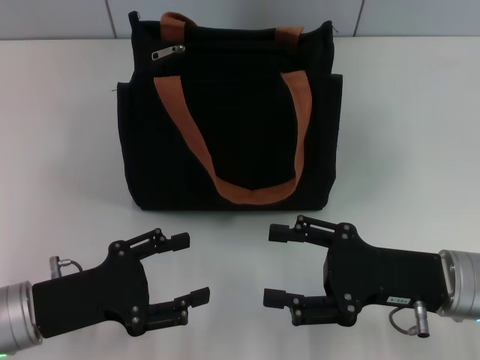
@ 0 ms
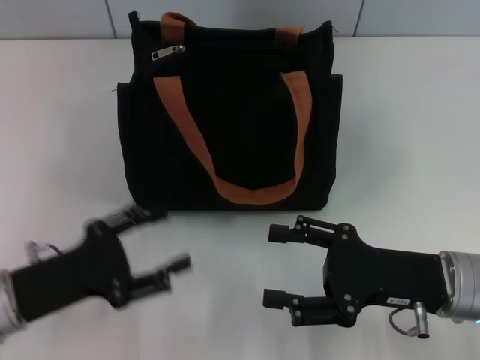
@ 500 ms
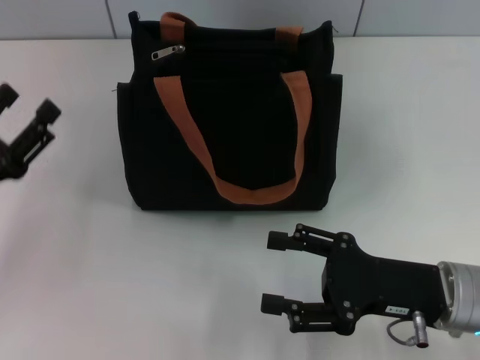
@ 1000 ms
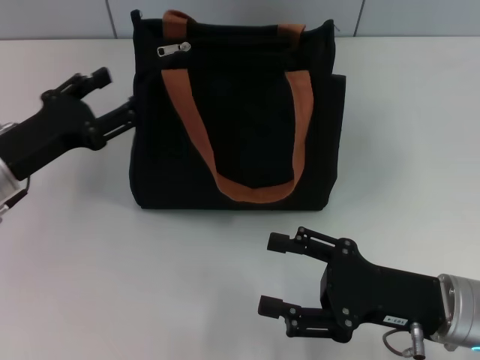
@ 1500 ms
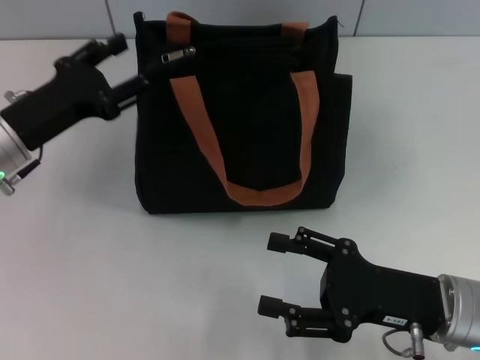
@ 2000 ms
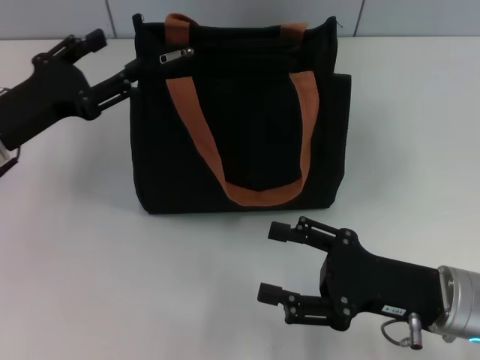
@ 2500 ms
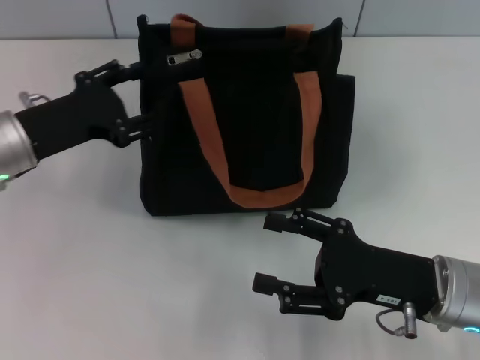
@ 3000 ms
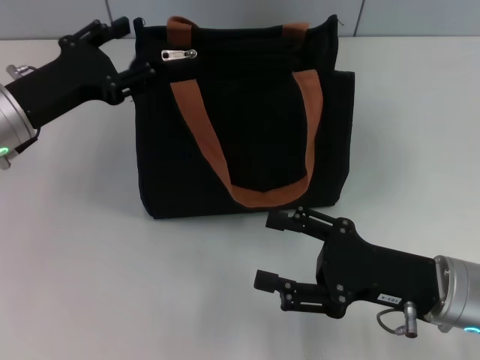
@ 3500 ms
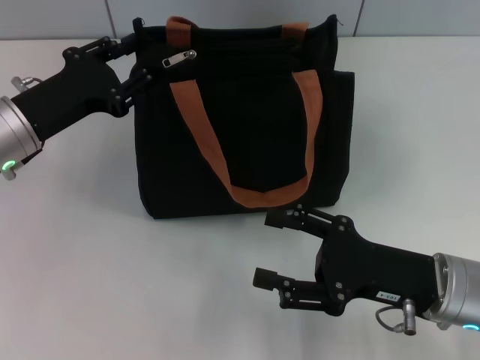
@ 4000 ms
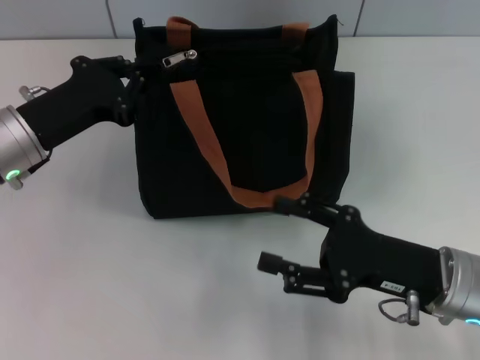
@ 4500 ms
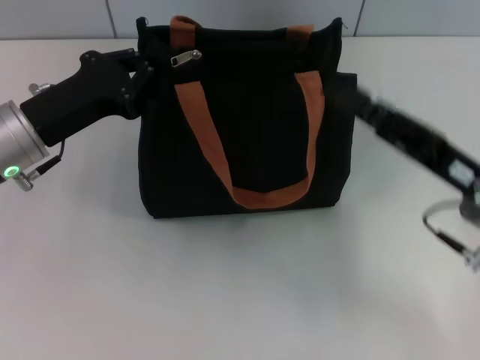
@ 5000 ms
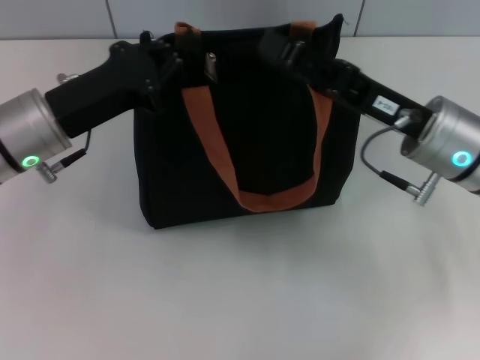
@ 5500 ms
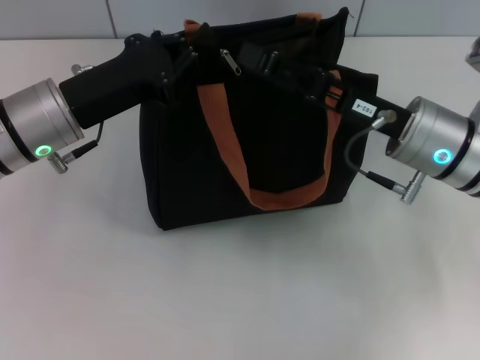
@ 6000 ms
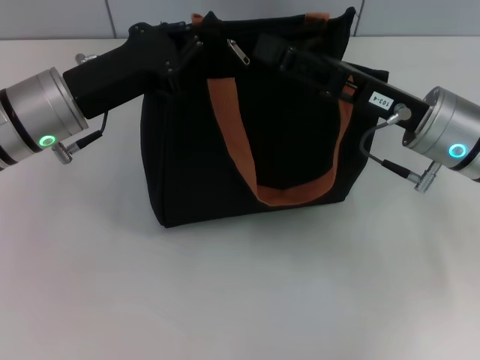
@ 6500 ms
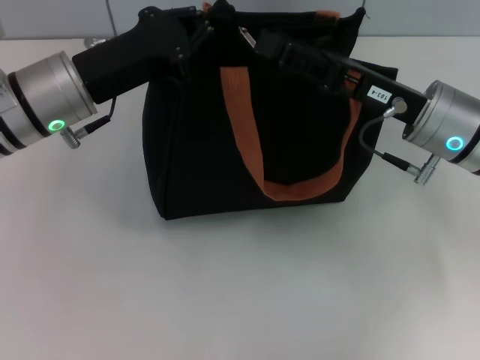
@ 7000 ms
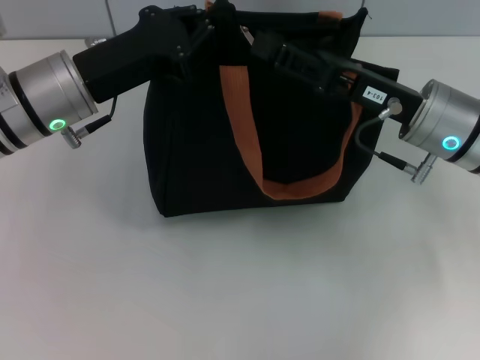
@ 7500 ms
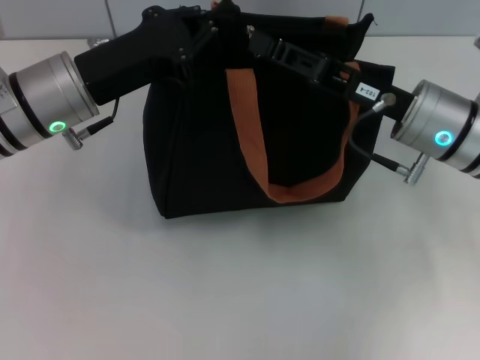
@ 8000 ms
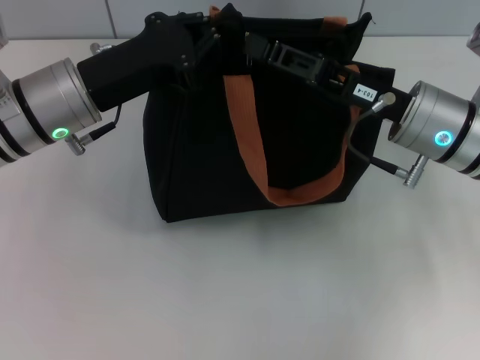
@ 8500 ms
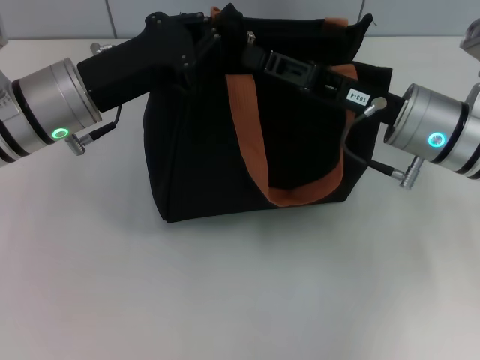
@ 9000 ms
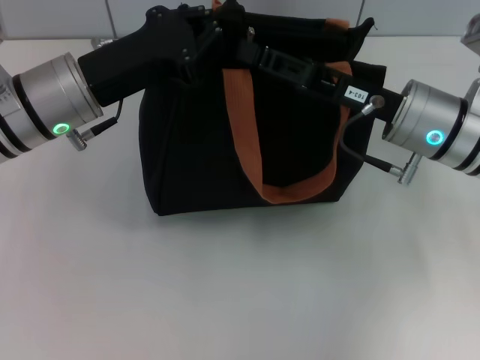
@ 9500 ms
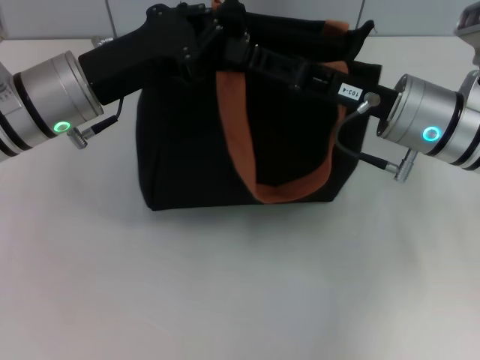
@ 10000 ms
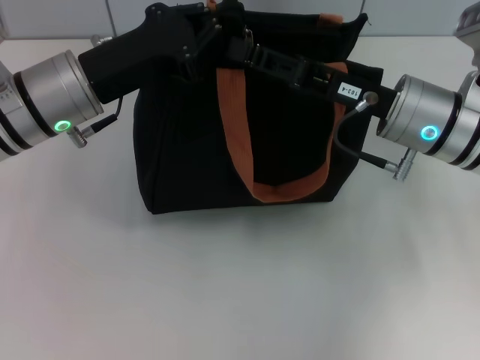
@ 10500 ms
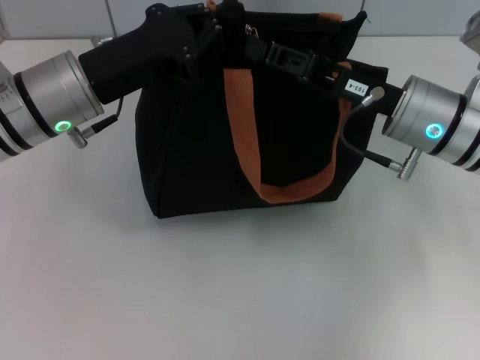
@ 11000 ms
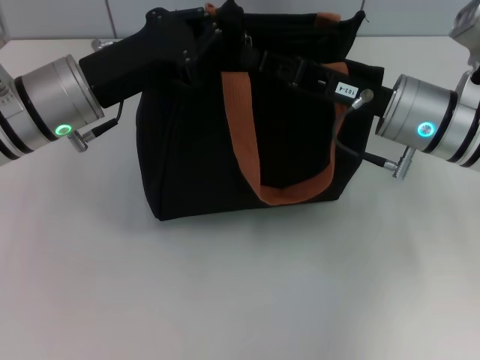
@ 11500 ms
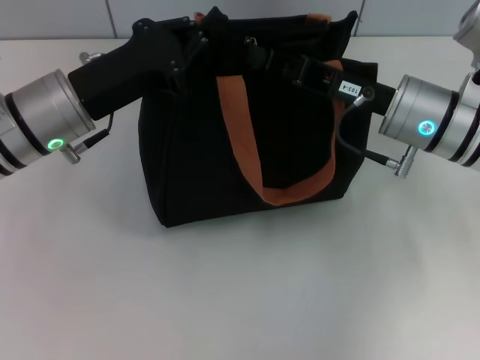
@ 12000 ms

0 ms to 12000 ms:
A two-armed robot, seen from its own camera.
0 ms to 2000 ms: The left gripper shifts roughly 15 cm forward and upward.
2000 ms to 4000 ms: There are only small adjustments of the grippers.
4000 ms to 6000 ms: The left gripper closes its fingers. The right gripper moves forward and upward, roughly 10 cm.
6000 ms to 8000 ms: The right gripper closes its fingers.
8000 ms to 10000 ms: The grippers move only a little.
10000 ms to 12000 ms: The right gripper closes.

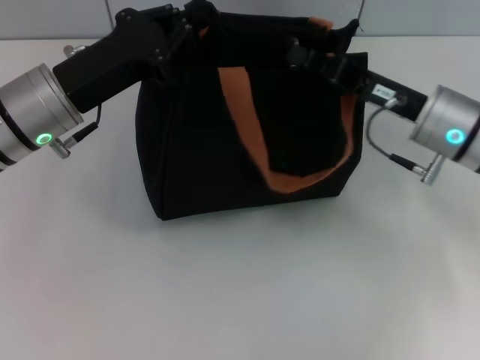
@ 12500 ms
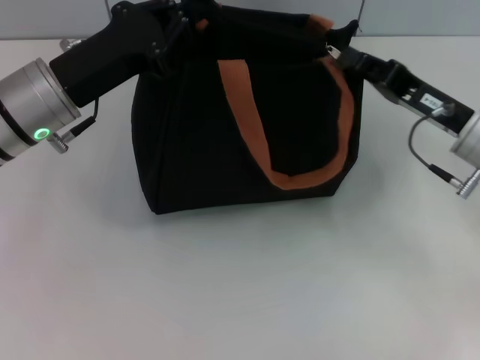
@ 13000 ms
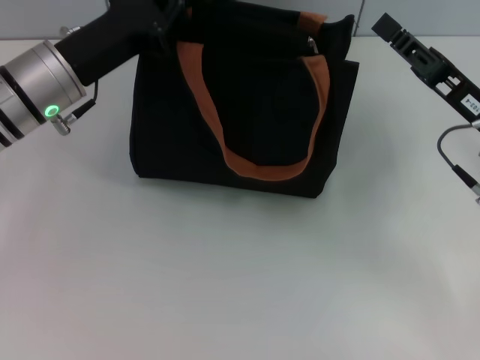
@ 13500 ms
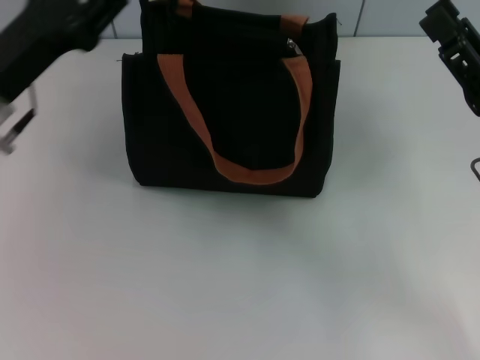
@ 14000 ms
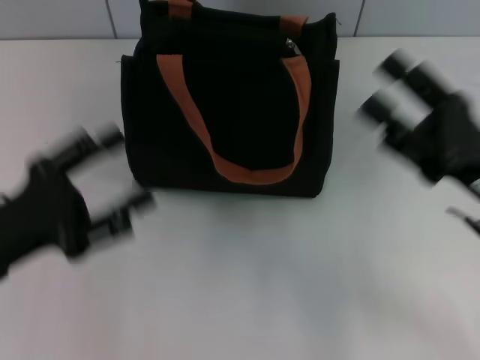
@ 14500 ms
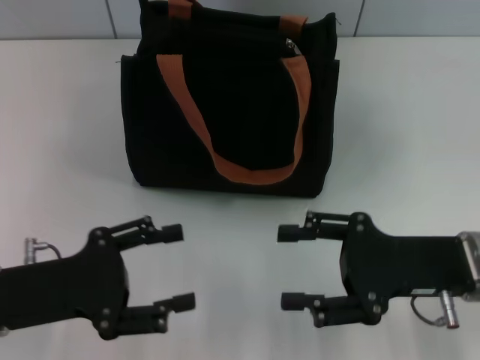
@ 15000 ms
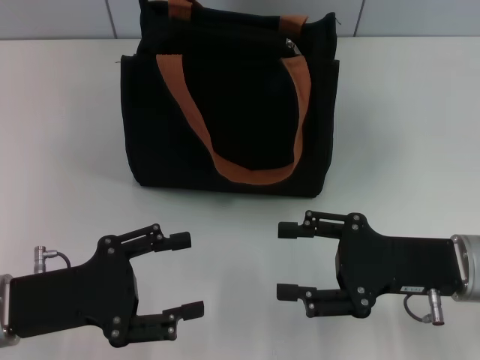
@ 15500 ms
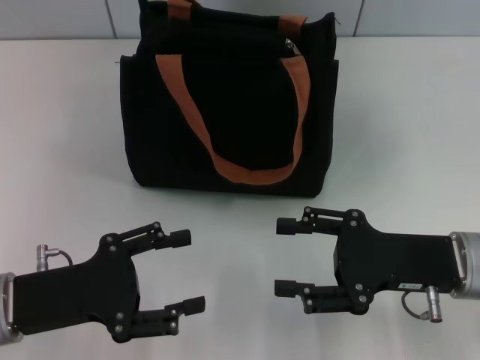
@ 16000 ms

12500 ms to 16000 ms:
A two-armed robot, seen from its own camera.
Step, 13500 ms to 14000 ms: Grab the zipper with your left hand.
12500 ms to 14500 ms: The right gripper shifts some 10 cm backward, and opens up. The left gripper travels backward and to the left by roughly 15 cm, and opens its fingers.
